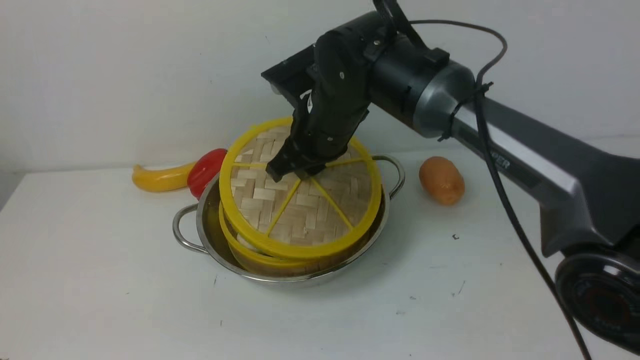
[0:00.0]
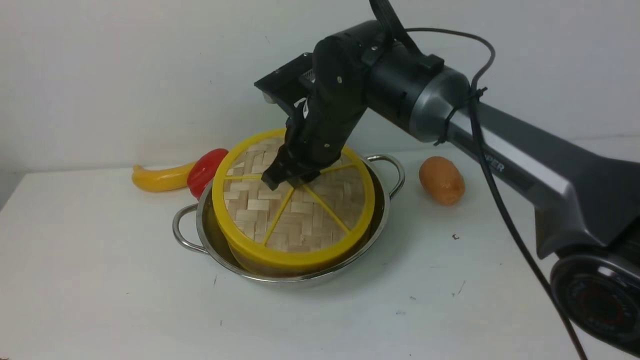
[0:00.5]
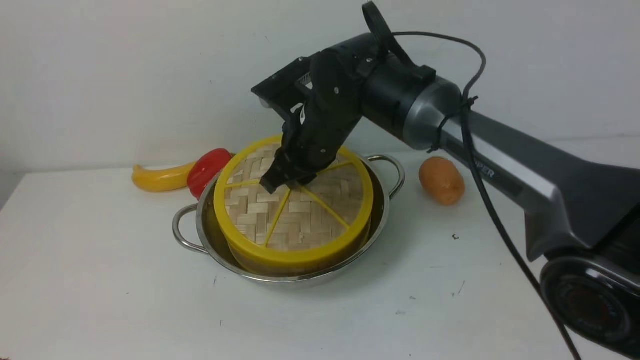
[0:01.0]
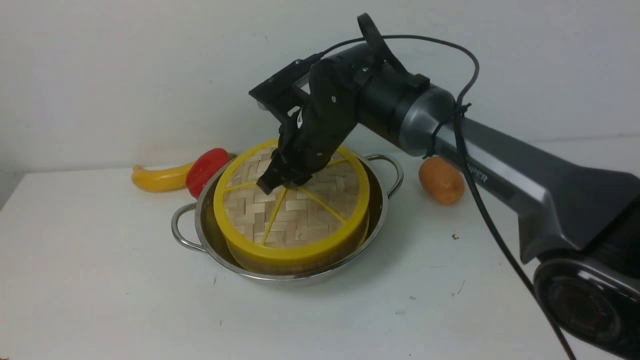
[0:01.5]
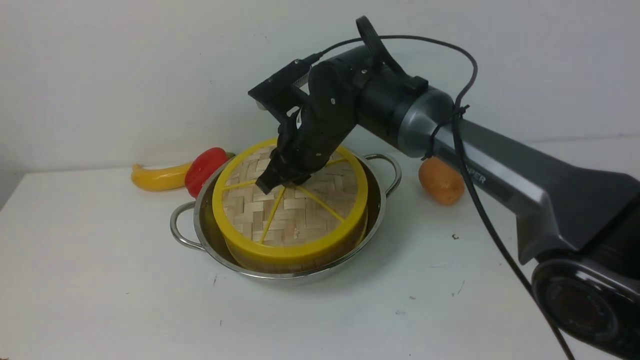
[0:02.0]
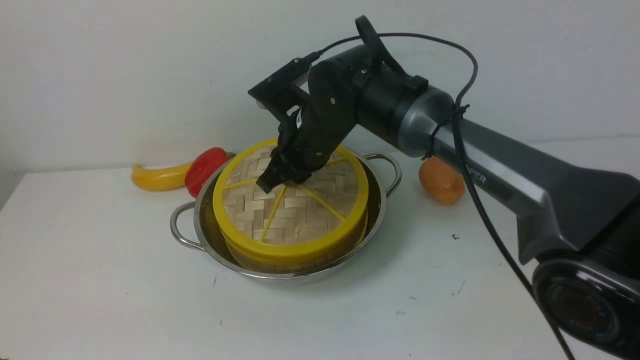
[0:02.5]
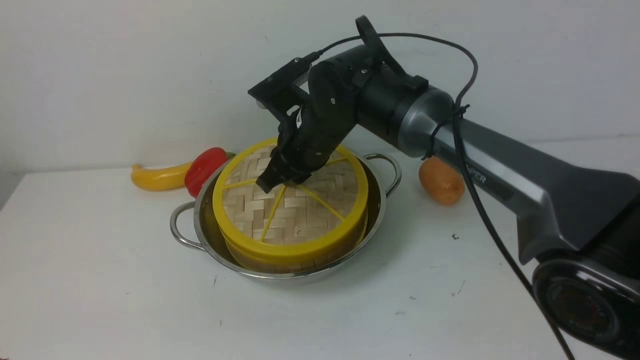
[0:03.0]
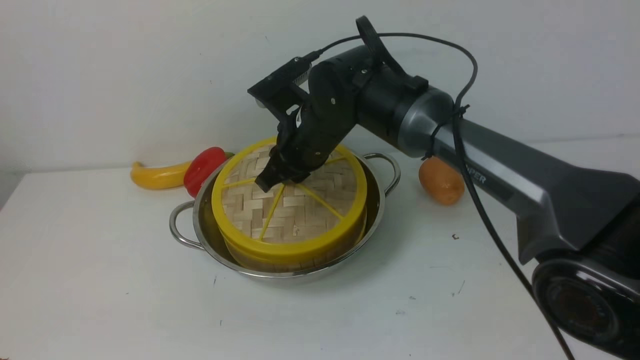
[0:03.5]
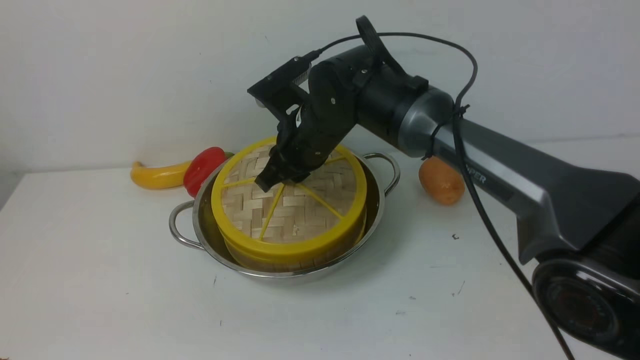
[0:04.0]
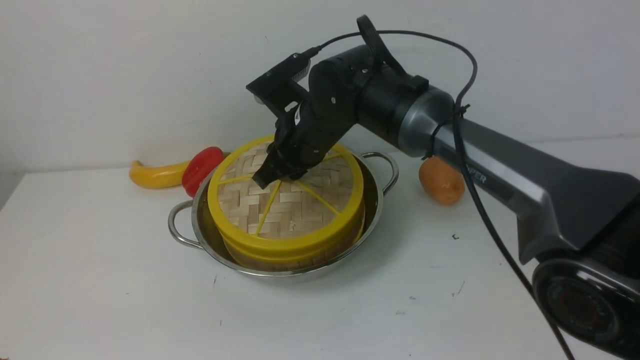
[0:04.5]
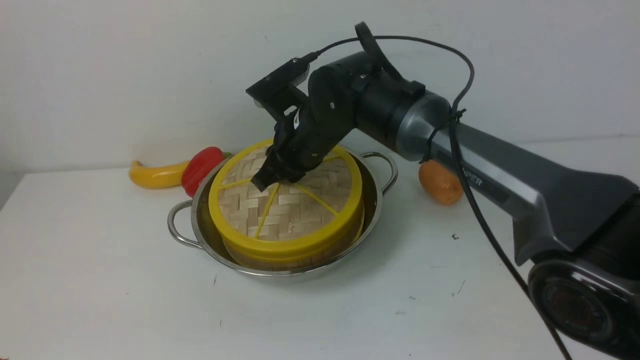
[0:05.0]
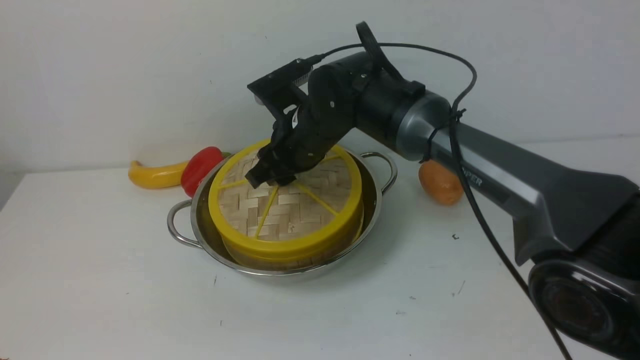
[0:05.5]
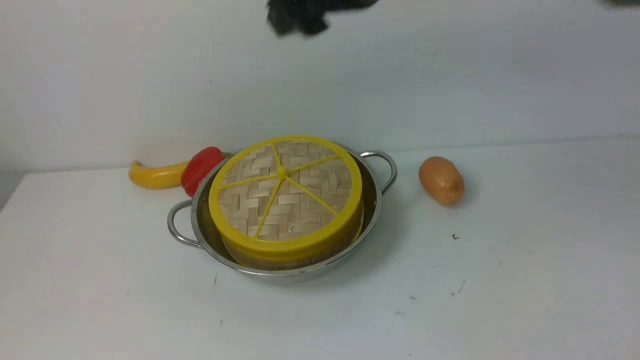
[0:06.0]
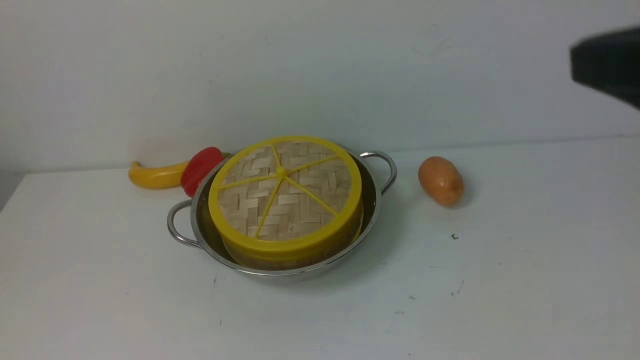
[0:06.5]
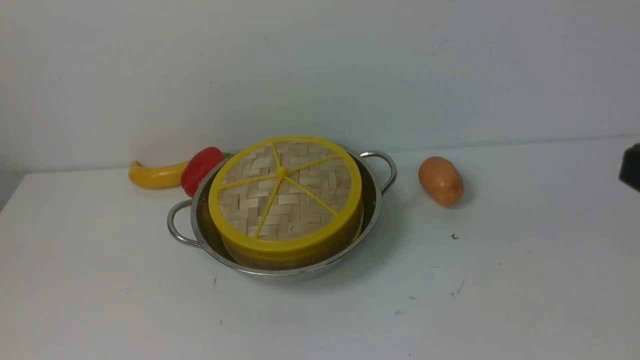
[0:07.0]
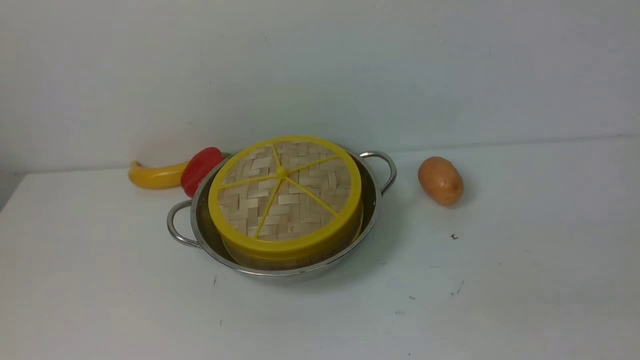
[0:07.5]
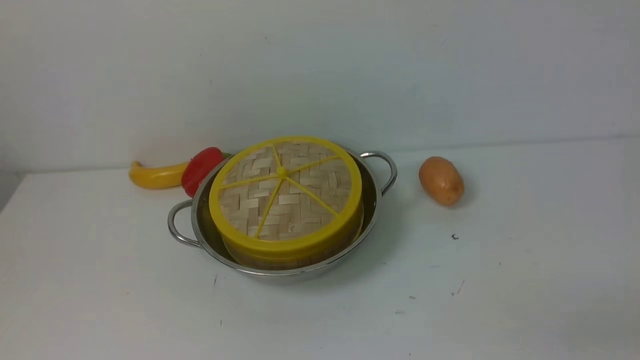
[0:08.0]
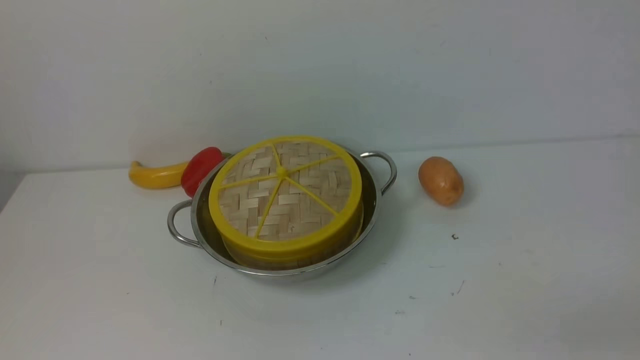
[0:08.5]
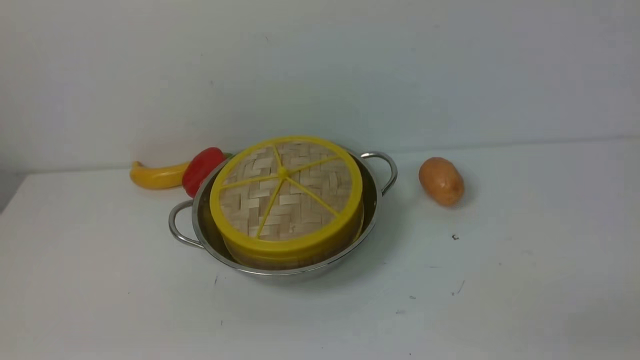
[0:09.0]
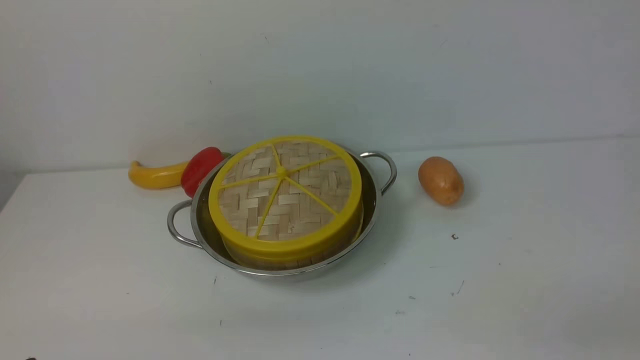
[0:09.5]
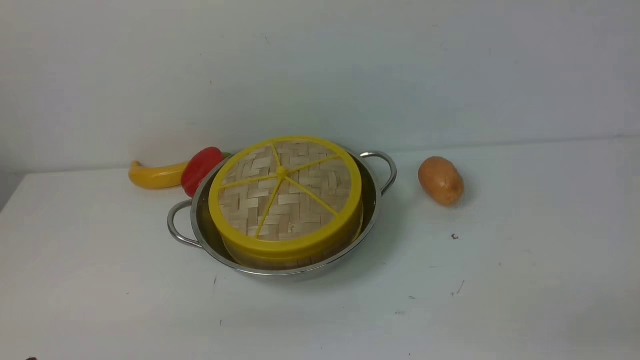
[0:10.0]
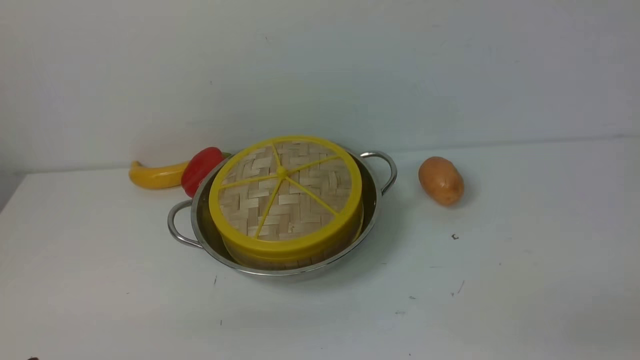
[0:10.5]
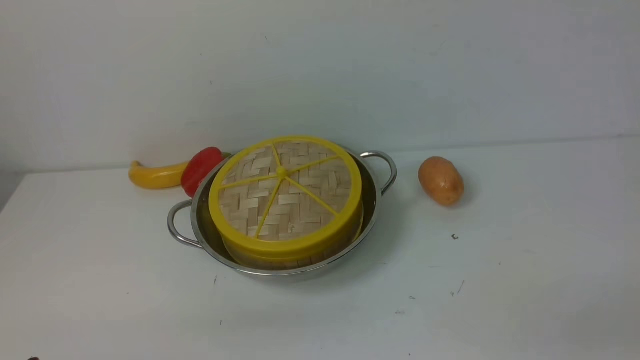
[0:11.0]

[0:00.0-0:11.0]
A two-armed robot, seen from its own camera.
Task of the whole recording: place the steamer in the pot on the white table, and put the lid on the steamer.
Step, 0:00.0 to 0:06.0: use the right arm to place the steamer lid on the steamer.
0:00.0 to 0:02.0: The grippers stay close to where they were, moving slightly.
0:02.0 to 0:03.5: Both grippers stay about where they are.
0:03.5 to 0:05.5: The right gripper opens up.
0:05.5 to 0:07.5: The left gripper opens its fingers. The right gripper travels to the right and backward by about 50 cm, and closes.
